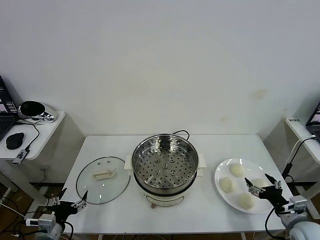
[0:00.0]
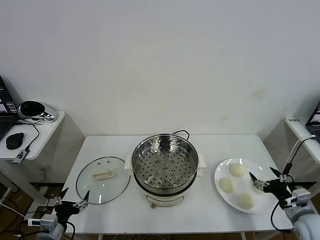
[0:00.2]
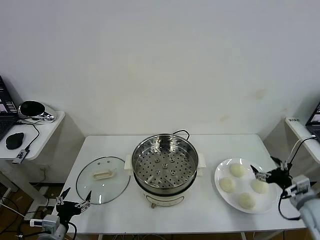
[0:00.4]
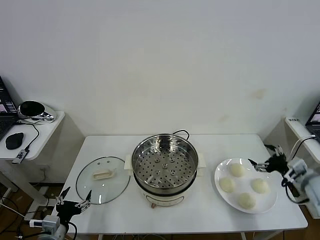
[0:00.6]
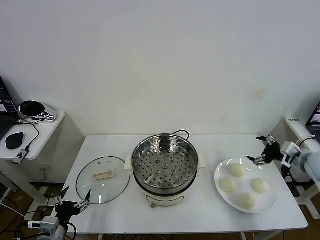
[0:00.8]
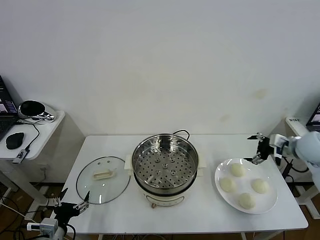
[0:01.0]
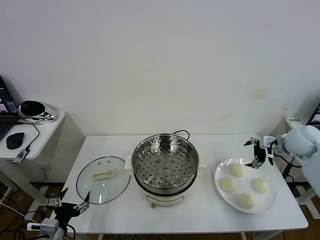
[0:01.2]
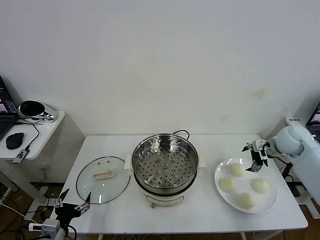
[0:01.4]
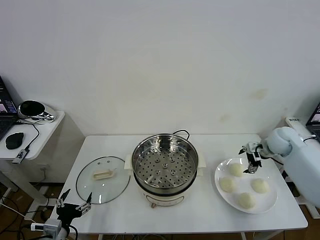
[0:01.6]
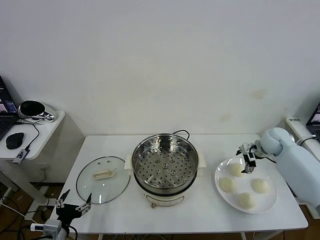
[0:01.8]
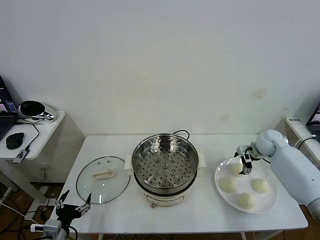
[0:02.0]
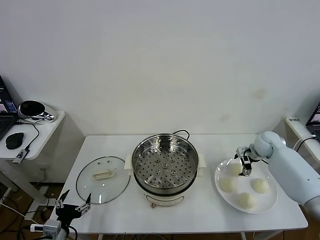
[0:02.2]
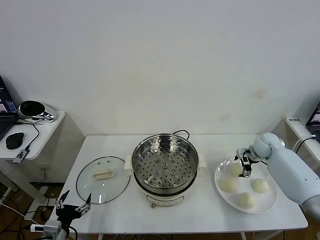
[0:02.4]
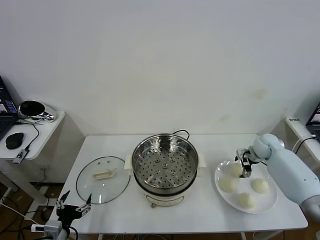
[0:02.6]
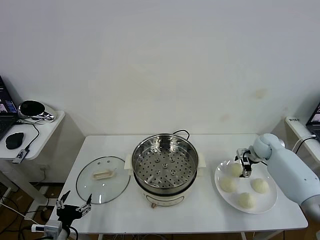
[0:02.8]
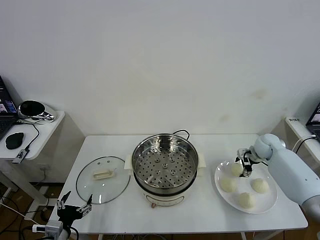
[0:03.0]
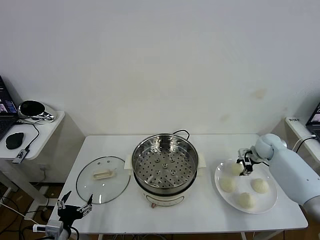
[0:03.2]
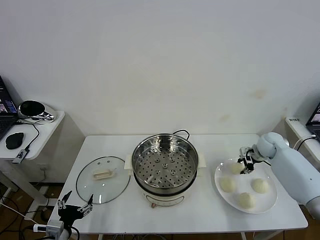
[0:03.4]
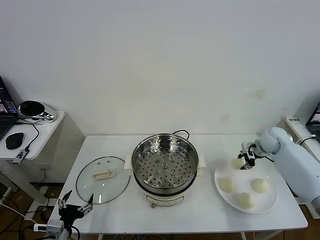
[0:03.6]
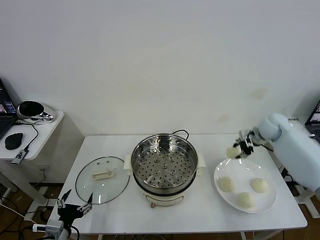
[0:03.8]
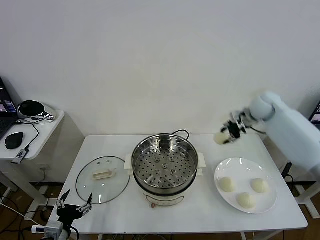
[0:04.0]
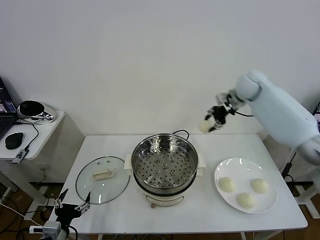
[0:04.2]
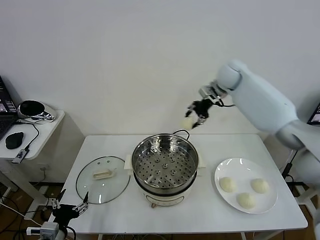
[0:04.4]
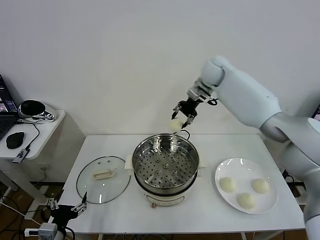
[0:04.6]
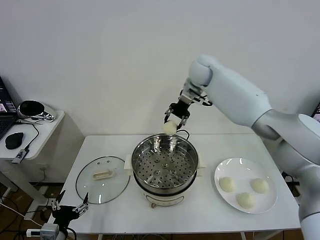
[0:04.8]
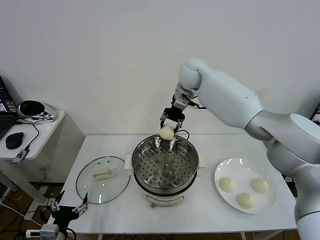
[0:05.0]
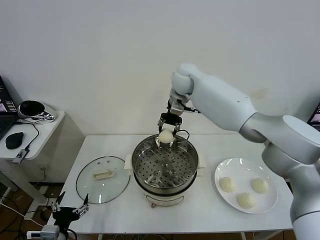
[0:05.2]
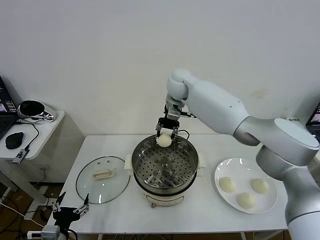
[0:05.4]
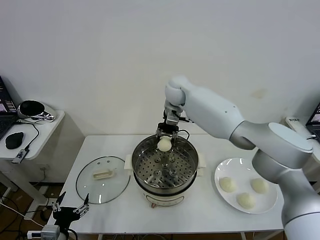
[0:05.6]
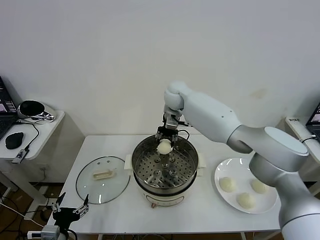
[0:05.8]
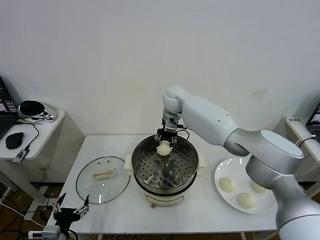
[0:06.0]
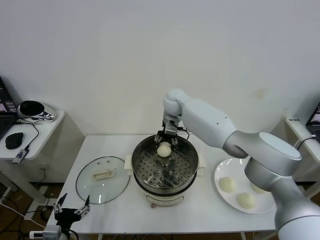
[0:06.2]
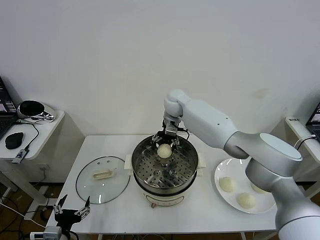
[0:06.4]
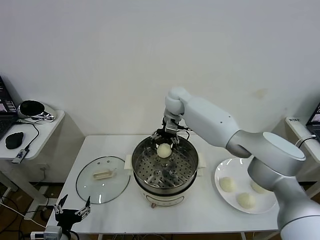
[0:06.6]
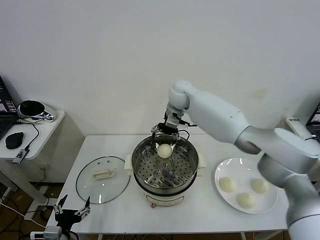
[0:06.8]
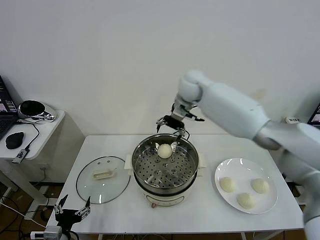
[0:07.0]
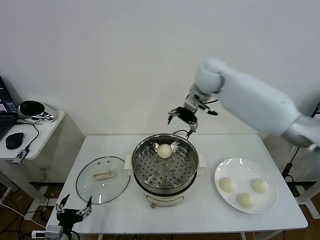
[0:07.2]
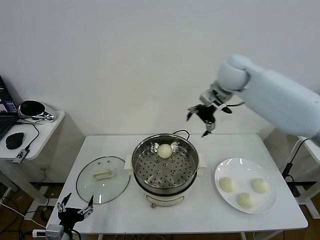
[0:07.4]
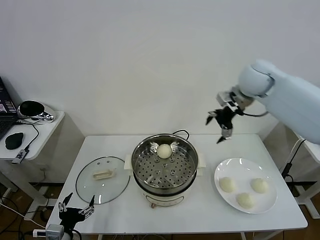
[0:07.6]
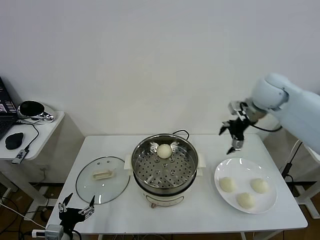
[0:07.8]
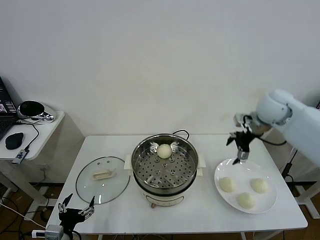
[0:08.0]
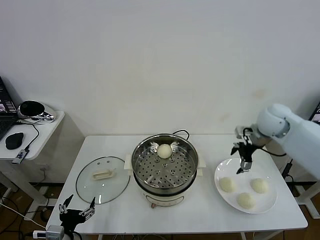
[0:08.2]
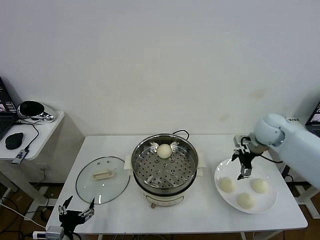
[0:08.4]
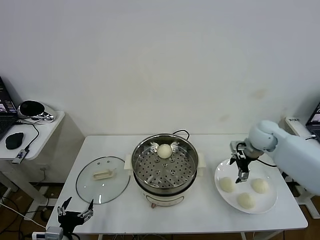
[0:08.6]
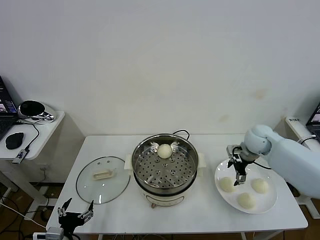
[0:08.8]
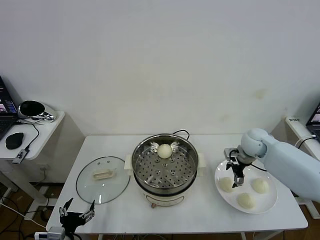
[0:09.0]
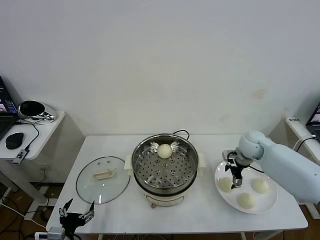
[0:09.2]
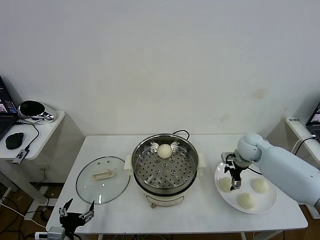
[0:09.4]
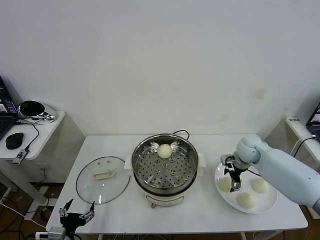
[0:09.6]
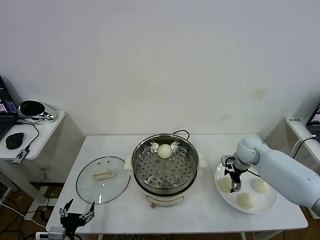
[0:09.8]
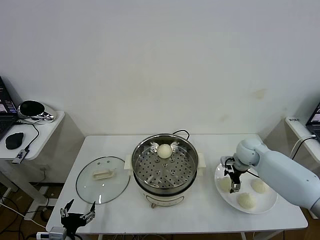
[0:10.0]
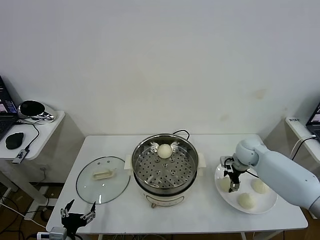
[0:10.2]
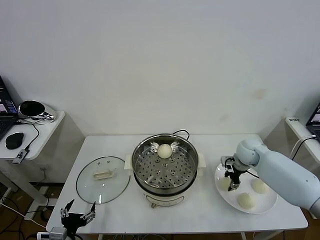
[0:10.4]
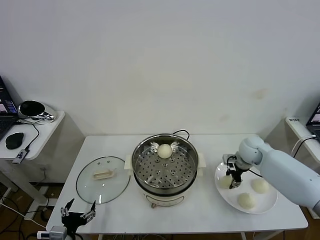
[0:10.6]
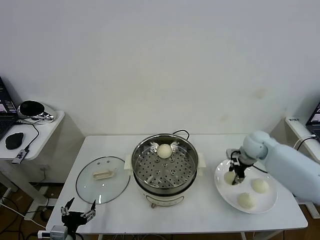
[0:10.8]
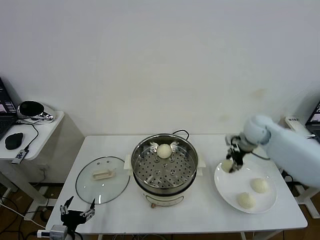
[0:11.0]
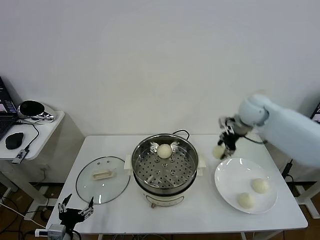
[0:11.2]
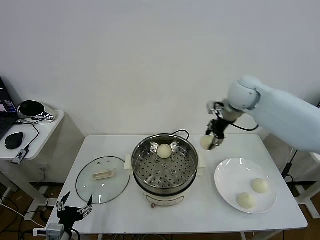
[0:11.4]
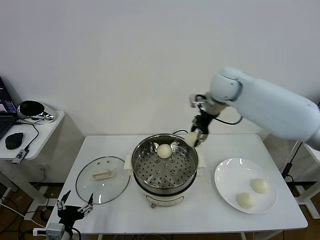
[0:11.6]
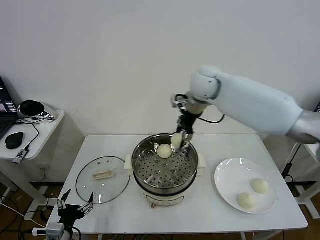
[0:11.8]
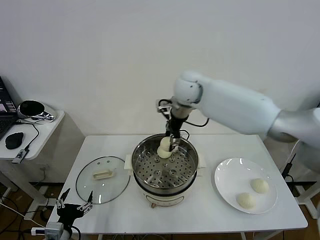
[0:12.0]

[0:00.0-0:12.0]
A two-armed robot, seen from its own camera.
Task of the whole recording: take steamed baozi put them in steamer then cover it.
Step, 0.0 to 3.0 s: Grasp the baozi in the plate with right gripper.
Step, 3.2 to 6.8 s: Place the baozi on the steamer with right gripper.
Step, 7.2 to 10.2 s: Grasp the baozi in the plate with right gripper.
1.6 to 3.0 s: The right gripper is displaced downward by about 5 cm, and closes up.
3.0 to 4.4 s: The right gripper shifts roughly 35 cm upward, to the left and forward.
4.4 to 6.0 s: The right gripper travels to the left and downward by some 15 cm.
6.0 to 7.6 s: The right gripper heads to the right and upward, covering some 30 cm, and opens its fingers.
7.6 to 9.0 s: The right gripper shifts roughly 20 cm downward.
9.0 to 10.4 s: The right gripper closes its fingers.
10.4 to 12.0 s: The right gripper moves to the left and upward, roughly 35 cm.

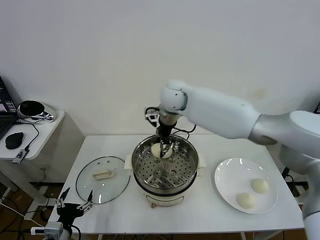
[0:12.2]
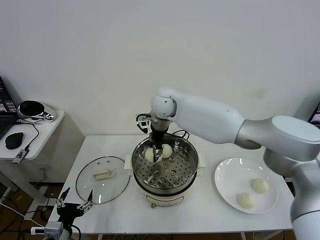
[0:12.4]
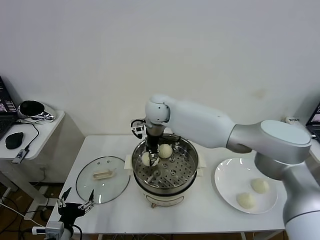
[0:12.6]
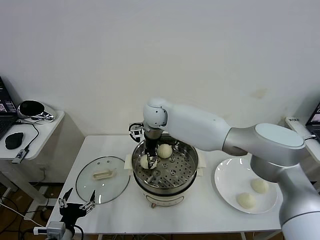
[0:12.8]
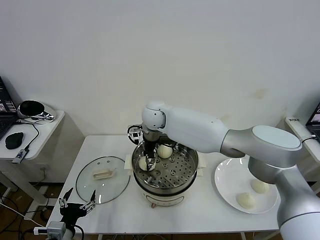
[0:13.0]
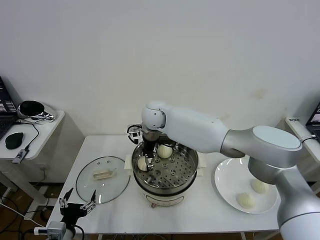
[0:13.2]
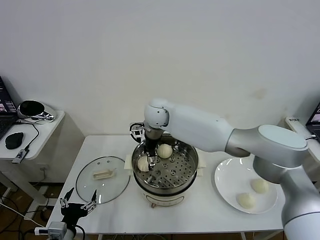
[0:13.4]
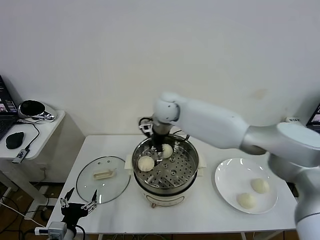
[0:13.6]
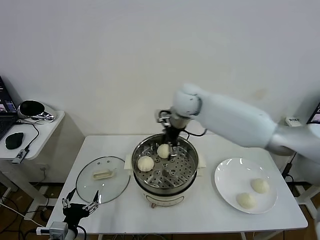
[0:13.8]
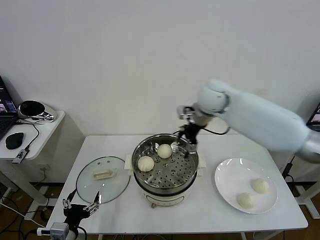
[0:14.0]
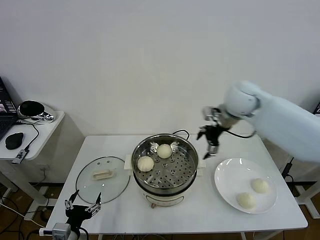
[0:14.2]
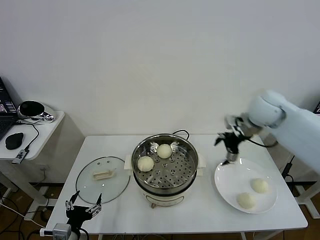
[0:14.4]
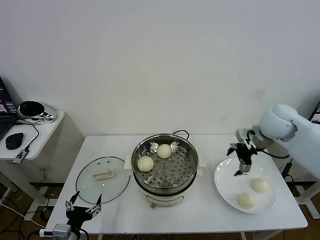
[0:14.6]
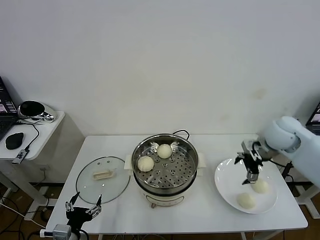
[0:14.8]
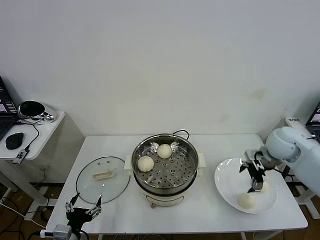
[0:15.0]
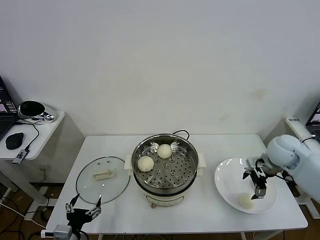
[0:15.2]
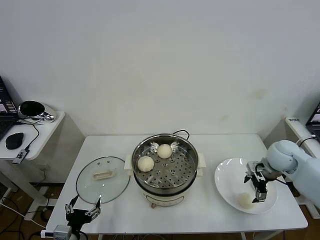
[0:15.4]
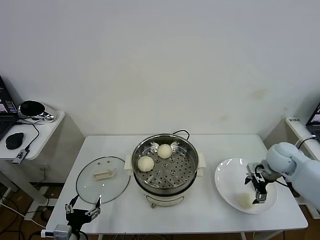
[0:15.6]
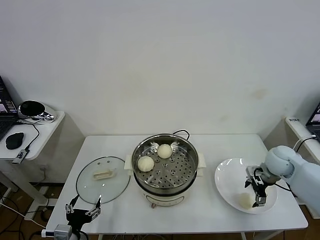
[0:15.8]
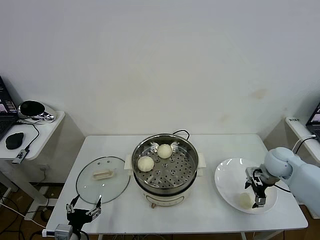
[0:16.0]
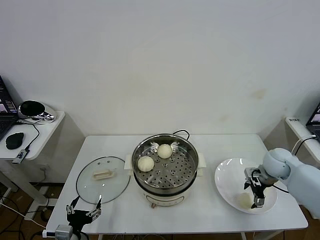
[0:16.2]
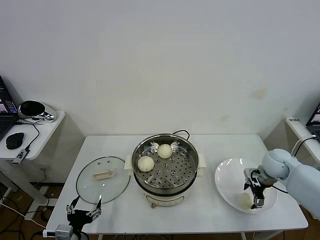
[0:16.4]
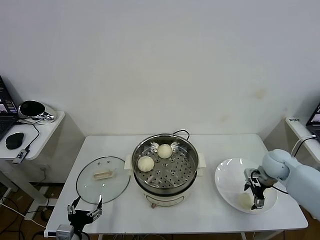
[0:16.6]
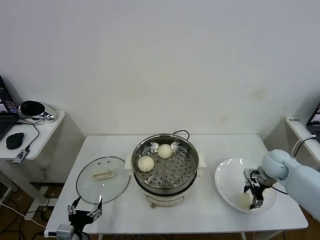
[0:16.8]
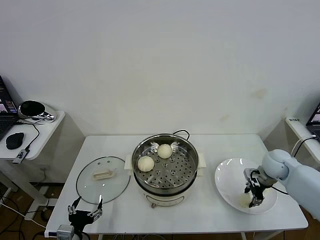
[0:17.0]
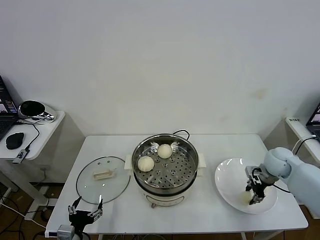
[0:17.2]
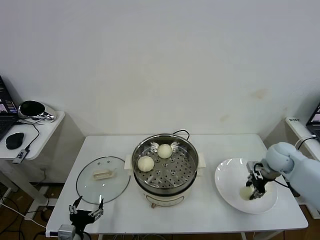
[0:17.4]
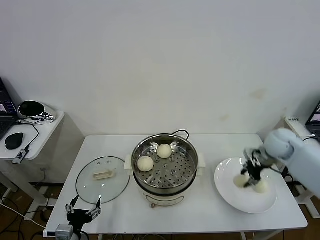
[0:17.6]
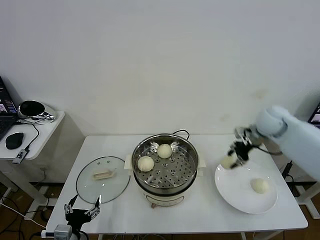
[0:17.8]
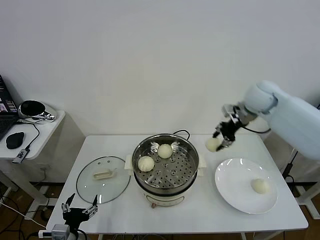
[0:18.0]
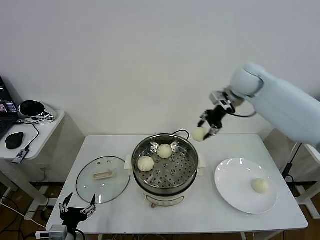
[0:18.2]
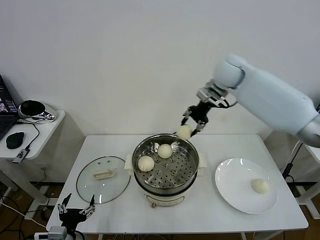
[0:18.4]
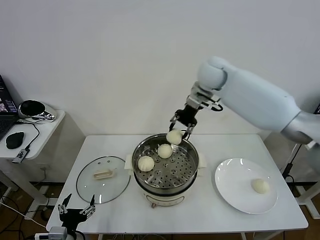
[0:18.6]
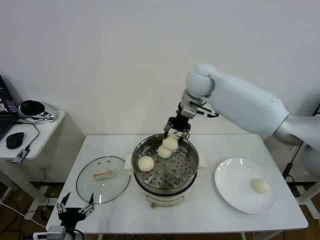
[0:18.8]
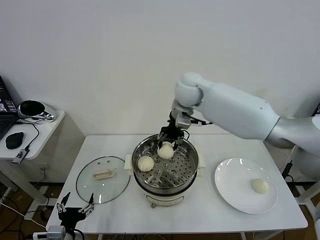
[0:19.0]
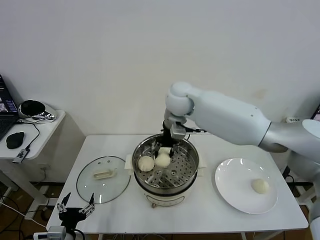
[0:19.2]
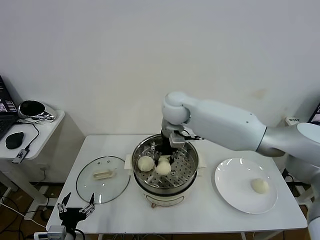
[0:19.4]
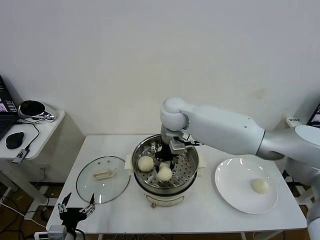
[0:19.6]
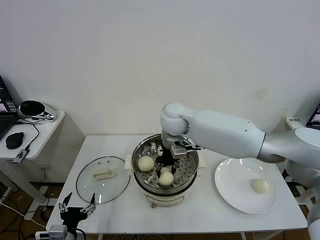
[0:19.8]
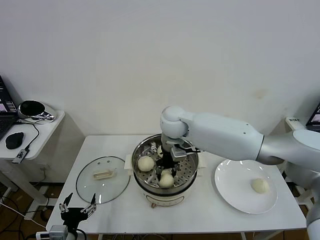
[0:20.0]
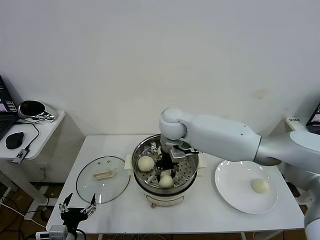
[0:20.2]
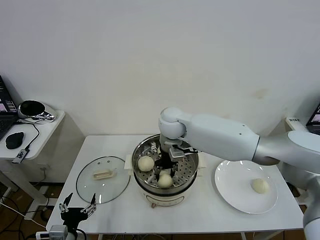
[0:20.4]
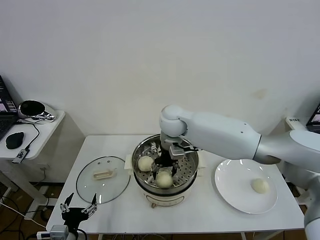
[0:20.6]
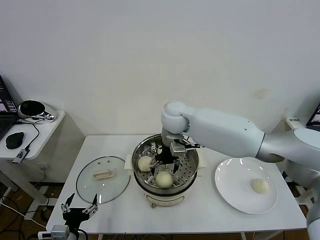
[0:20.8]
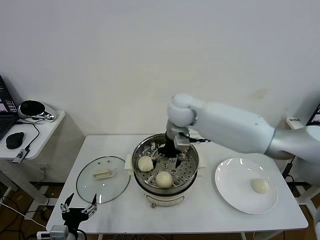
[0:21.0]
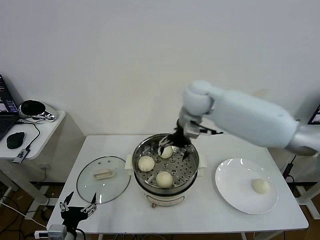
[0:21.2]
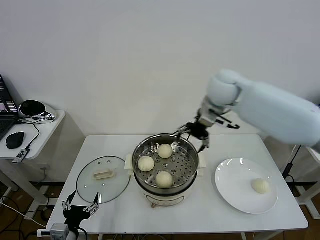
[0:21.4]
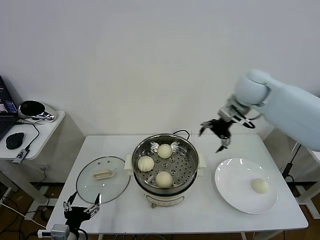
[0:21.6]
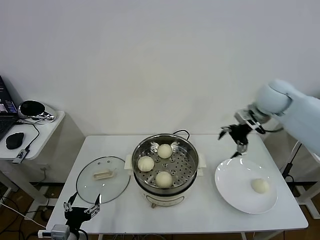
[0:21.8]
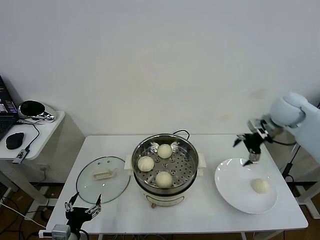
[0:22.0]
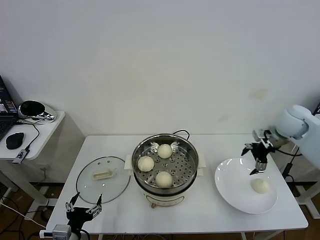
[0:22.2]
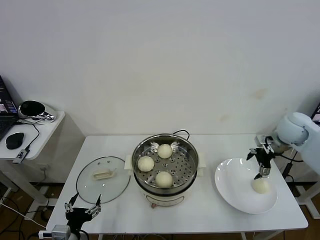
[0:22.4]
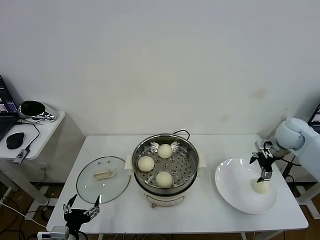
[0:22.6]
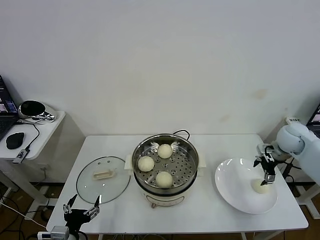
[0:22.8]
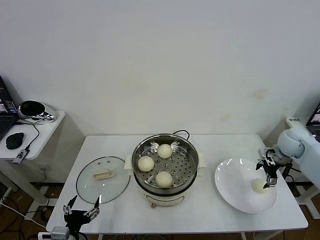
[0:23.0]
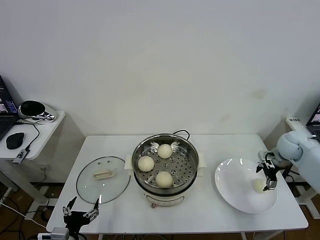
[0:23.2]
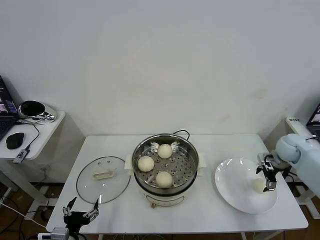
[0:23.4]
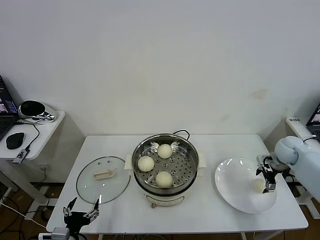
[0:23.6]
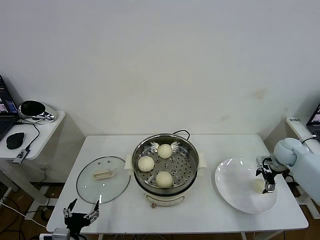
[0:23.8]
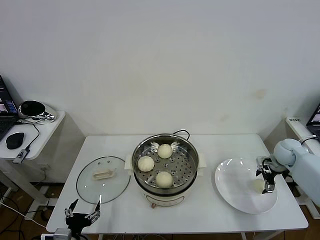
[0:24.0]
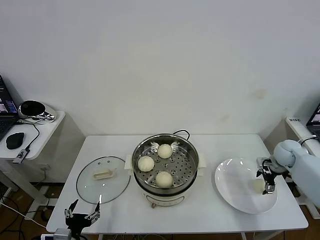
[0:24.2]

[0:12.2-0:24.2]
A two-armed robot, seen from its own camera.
Task of the whole recording: take steamed baozi put them in steamer then cover it.
Step, 13.8 to 16.8 s: Grasp the baozi in the plate with right gripper.
Step, 17.2 to 21.2 s: Place the baozi on the steamer with right gripper.
12.2 to 13.8 s: The right gripper is displaced to the right by some 10 cm, and opens up.
13.8 to 15.2 s: The right gripper goes roughly 30 cm to the right, downward and backward.
15.2 to 16.6 s: The right gripper moves downward, approximately 5 cm.
16.6 to 18.2 s: The right gripper is displaced upward, to the left and forward by roughly 35 cm, and closes.
18.2 to 19.8 s: The right gripper heads to the left, downward and backward, covering roughly 25 cm.
19.8 to 21.2 s: The right gripper moves to the right and upward, roughly 15 cm, and opens.
21.2 to 22.6 s: The right gripper goes approximately 35 cm to the right and downward.
22.6 to 24.2 s: The right gripper goes some 10 cm downward.
